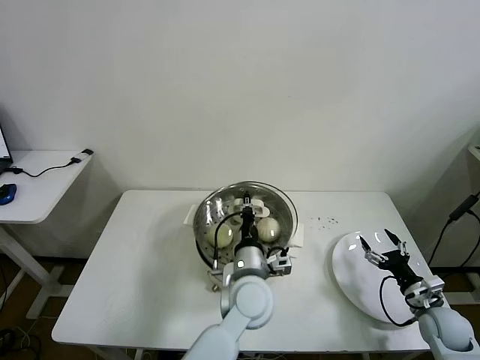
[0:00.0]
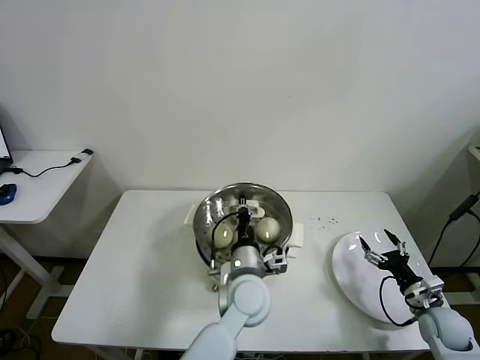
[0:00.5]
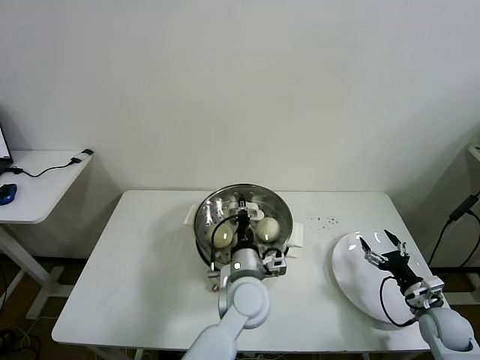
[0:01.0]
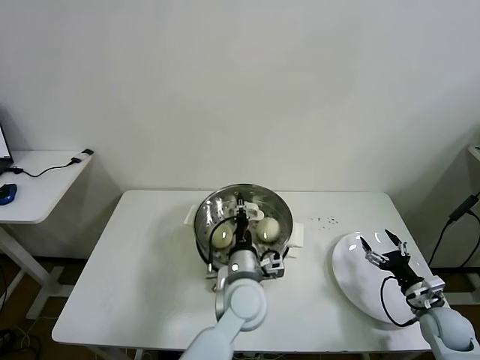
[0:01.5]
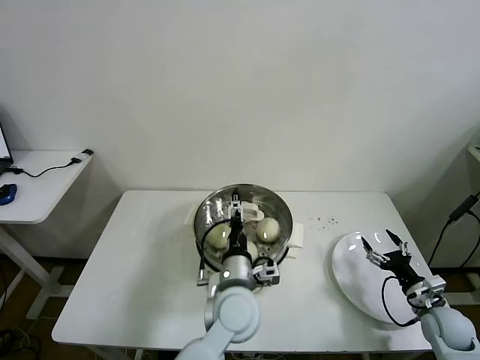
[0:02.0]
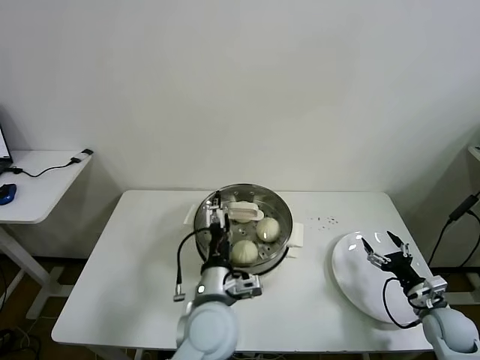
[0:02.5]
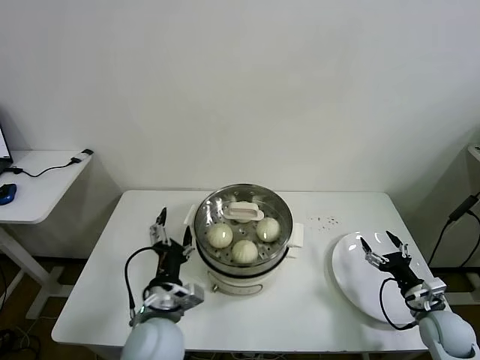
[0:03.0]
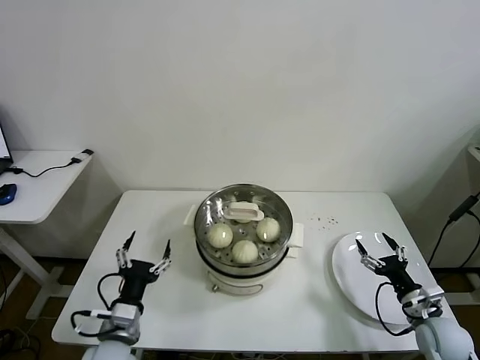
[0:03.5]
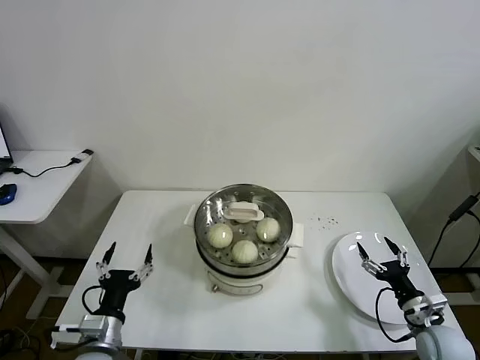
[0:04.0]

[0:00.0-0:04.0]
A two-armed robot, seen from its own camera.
Task of the whole recording: take steamed baozi put them in steamer then cover it.
0:00.0 to 0:02.0: The left gripper opens.
0:02.0 to 0:04.0: The right gripper changes place by approximately 5 cm; the left gripper is displaced to the left by about 25 cm.
